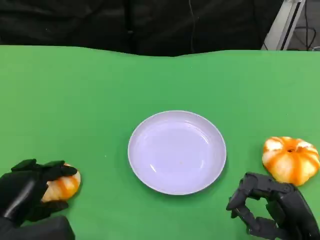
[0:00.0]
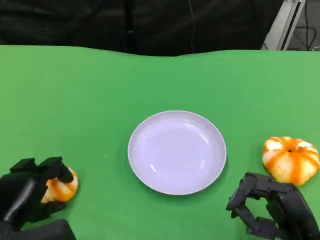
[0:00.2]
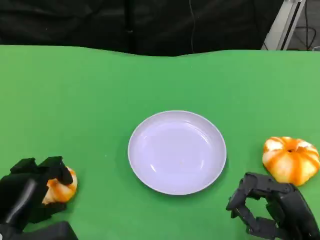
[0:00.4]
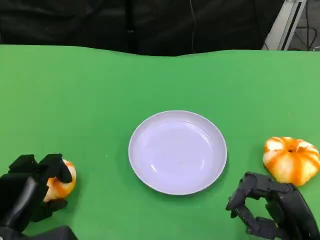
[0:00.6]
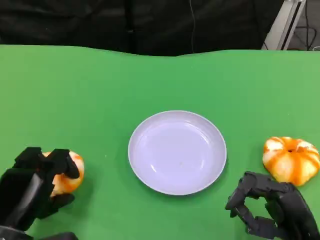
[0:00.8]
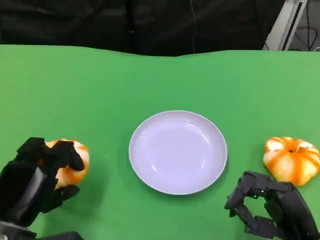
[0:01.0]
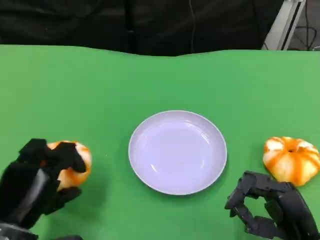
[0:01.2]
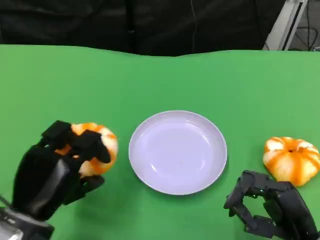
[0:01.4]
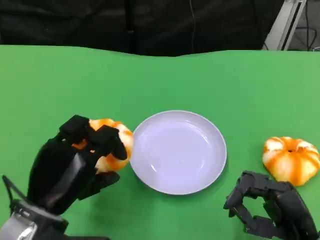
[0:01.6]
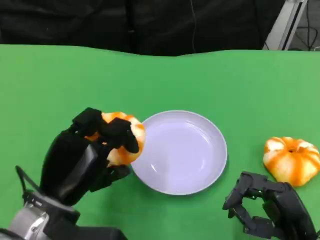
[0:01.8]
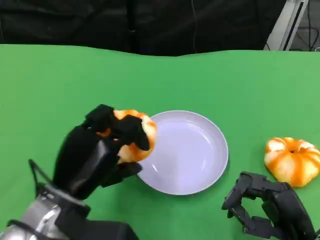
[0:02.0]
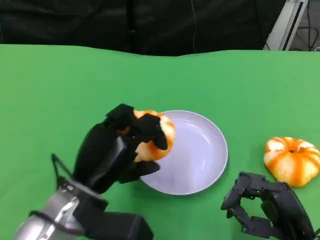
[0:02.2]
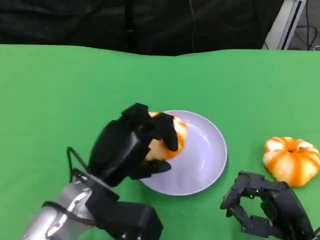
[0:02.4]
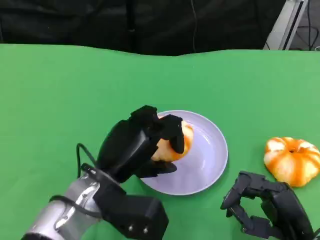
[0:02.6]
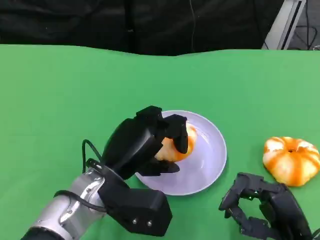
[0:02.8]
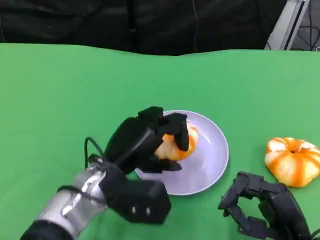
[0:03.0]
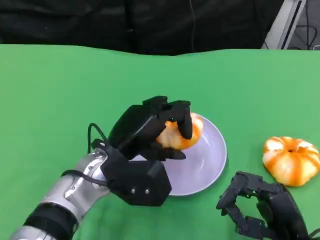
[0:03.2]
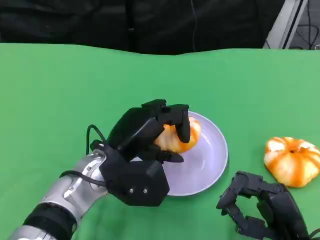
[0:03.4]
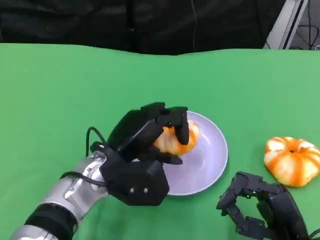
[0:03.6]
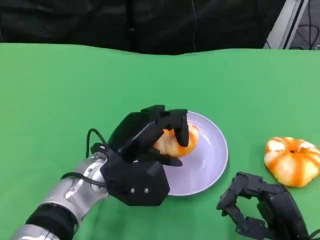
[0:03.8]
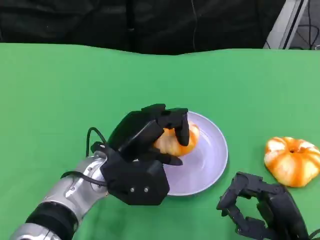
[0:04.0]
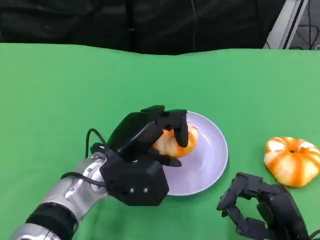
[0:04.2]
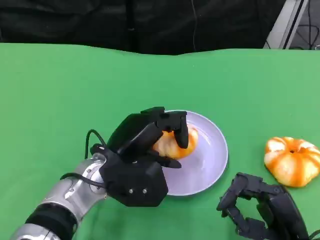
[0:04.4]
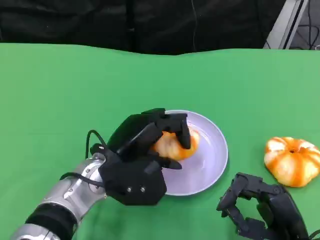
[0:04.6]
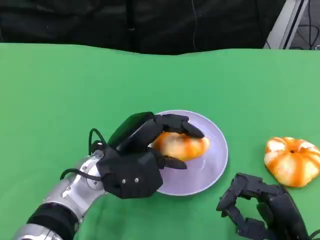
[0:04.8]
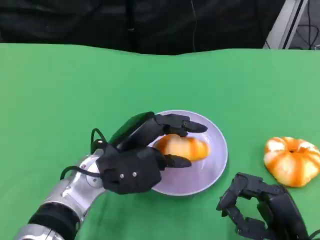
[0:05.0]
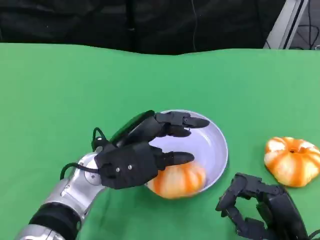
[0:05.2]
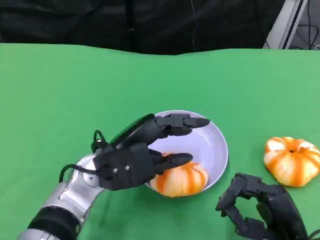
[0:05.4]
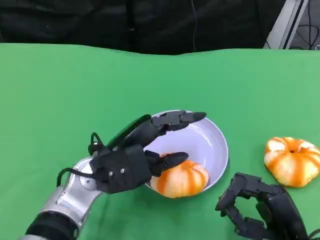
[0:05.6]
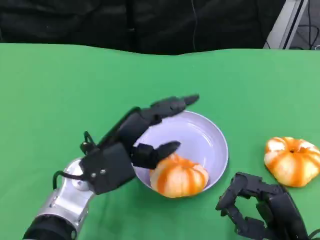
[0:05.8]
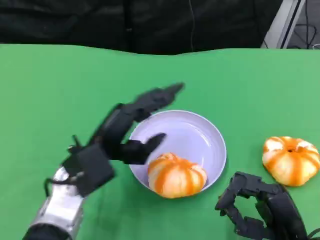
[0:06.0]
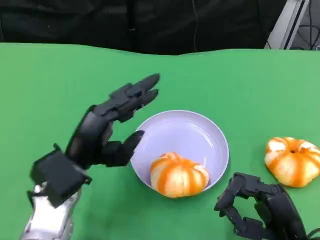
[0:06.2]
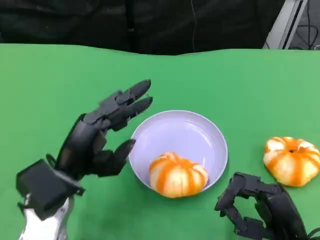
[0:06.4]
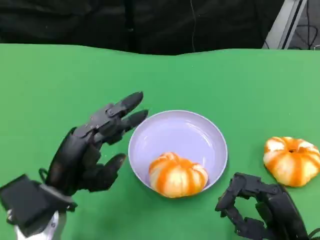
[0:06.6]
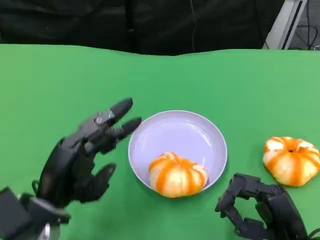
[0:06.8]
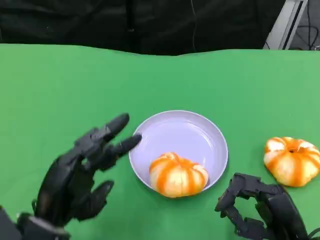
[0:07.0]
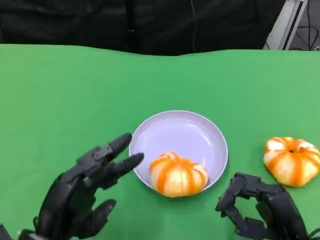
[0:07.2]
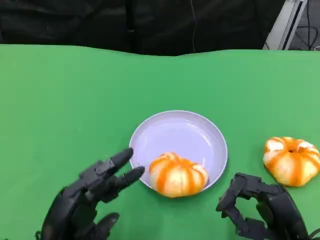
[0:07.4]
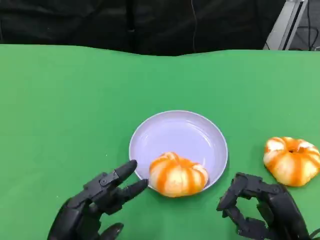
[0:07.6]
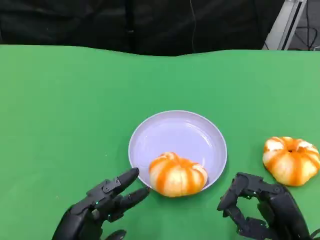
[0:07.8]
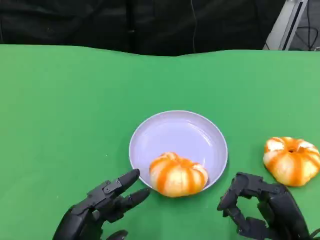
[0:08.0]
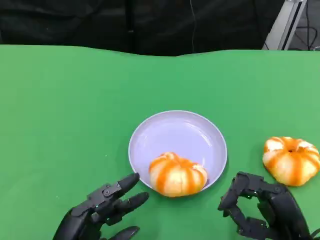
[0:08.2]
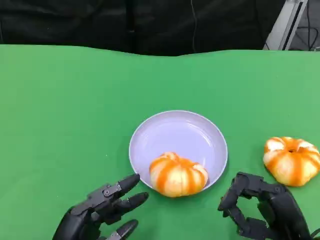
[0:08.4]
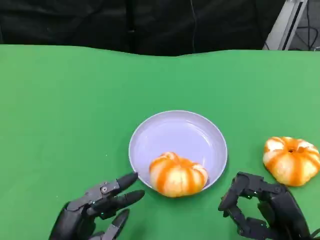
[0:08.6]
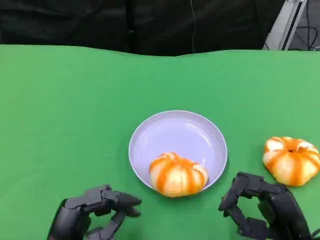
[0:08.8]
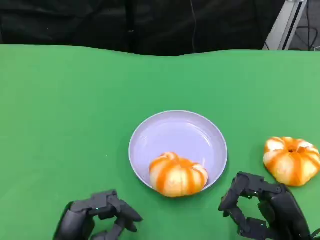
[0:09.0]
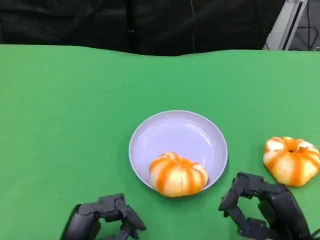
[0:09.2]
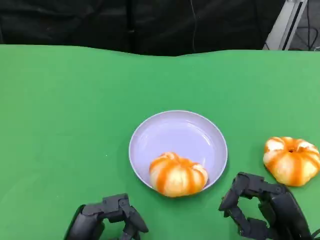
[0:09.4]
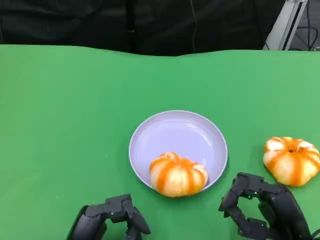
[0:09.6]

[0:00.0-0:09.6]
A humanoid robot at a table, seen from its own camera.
Task of the whole recording: Grasp the bread from the table and place it into the plate.
0:00.0 to 0:01.6: The left hand heads upward and to the right, covering roughly 10 cm.
0:01.6 to 0:03.2: The left hand travels to the right and forward by approximately 10 cm.
0:03.2 to 0:04.8: The hands make only small movements.
0:04.8 to 0:06.4: The left hand goes approximately 5 cm to the left.
0:06.4 to 0:08.0: The left hand is displaced backward and downward by some 10 cm.
0:08.0 to 0:09.6: The hands make only small movements.

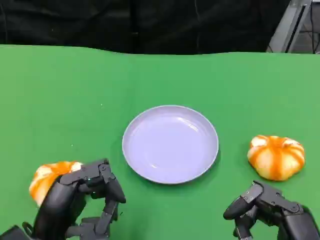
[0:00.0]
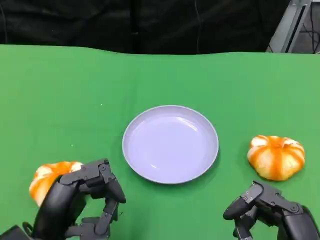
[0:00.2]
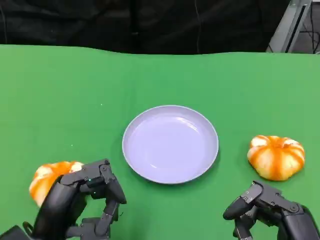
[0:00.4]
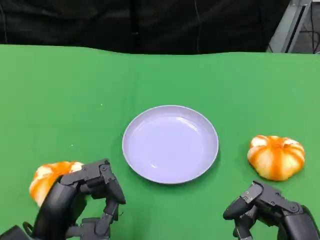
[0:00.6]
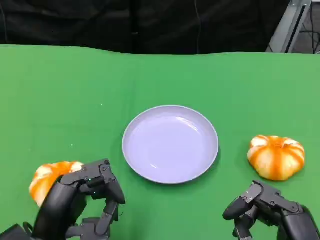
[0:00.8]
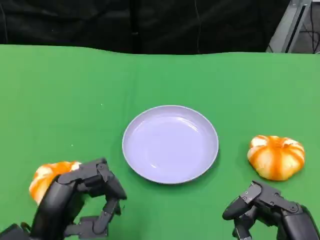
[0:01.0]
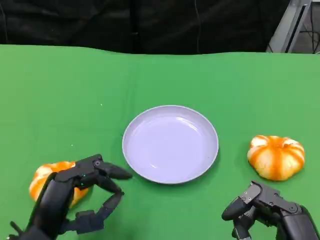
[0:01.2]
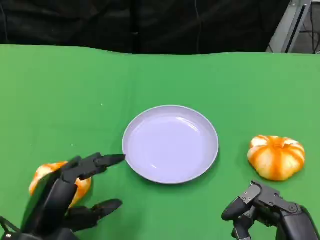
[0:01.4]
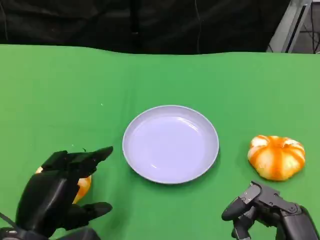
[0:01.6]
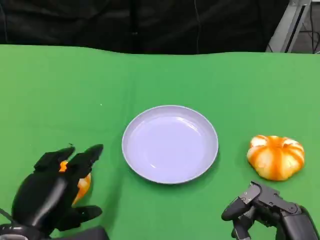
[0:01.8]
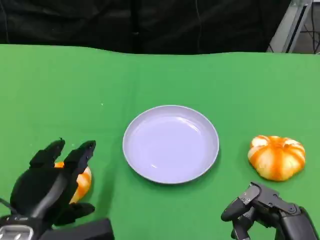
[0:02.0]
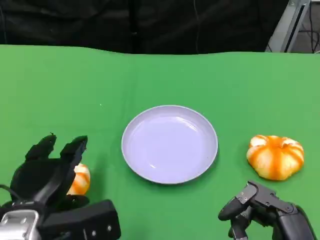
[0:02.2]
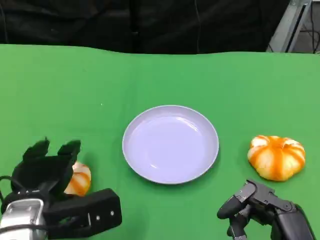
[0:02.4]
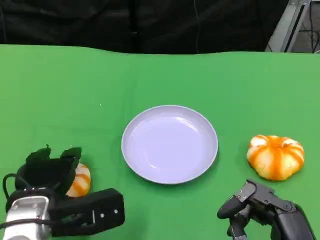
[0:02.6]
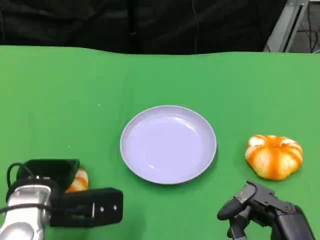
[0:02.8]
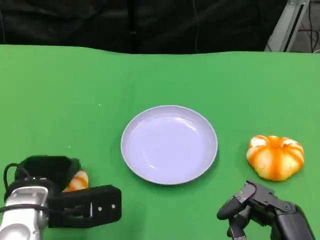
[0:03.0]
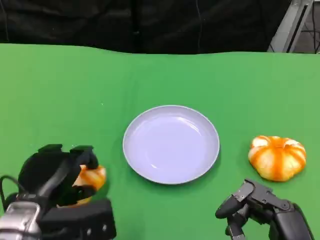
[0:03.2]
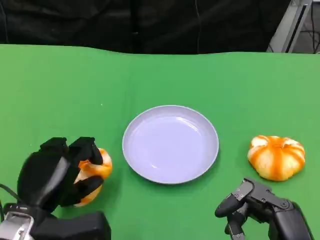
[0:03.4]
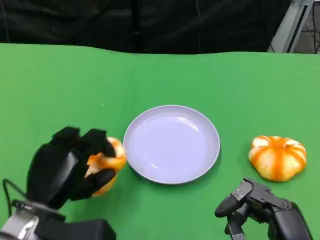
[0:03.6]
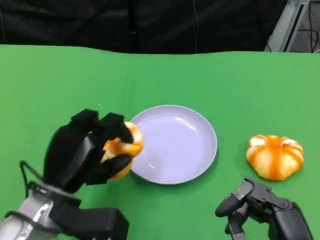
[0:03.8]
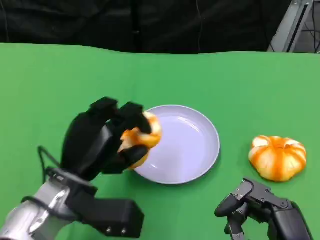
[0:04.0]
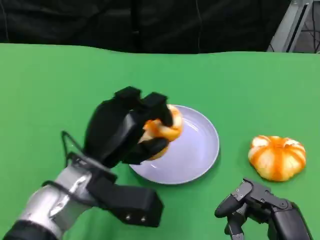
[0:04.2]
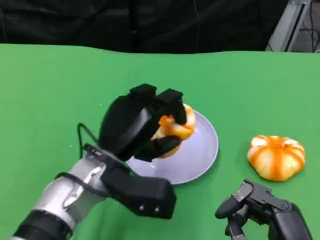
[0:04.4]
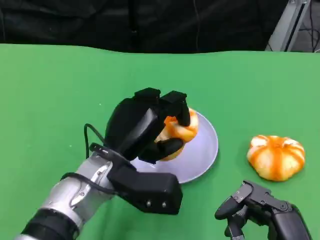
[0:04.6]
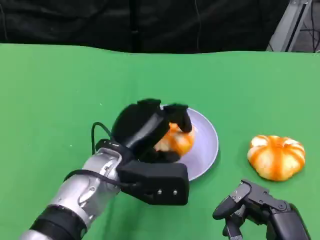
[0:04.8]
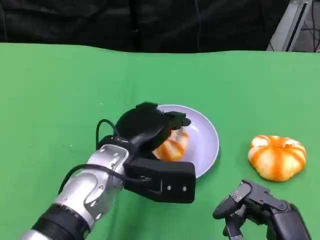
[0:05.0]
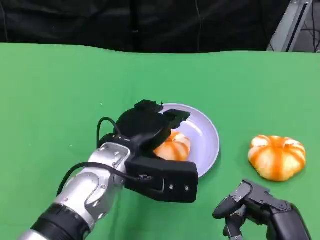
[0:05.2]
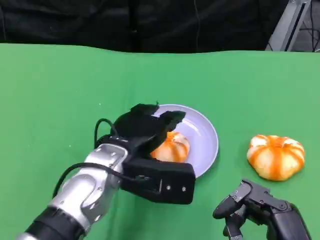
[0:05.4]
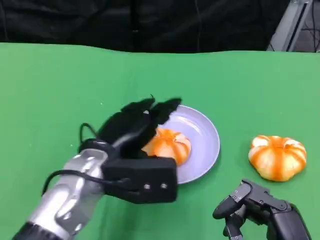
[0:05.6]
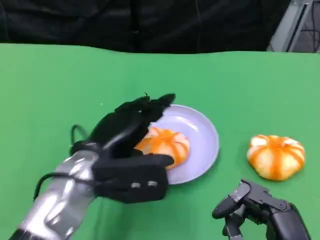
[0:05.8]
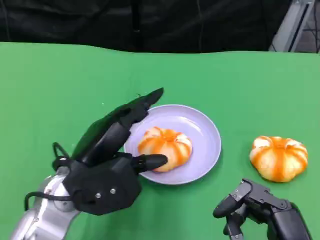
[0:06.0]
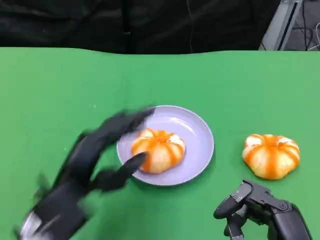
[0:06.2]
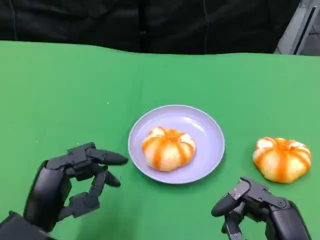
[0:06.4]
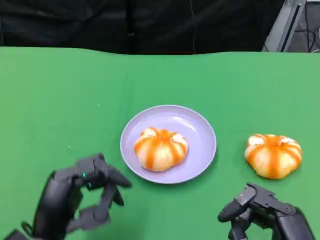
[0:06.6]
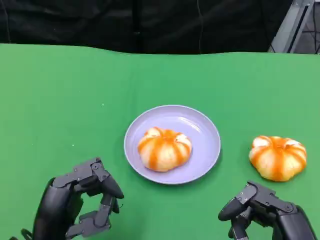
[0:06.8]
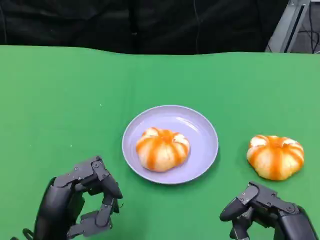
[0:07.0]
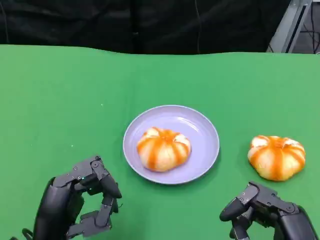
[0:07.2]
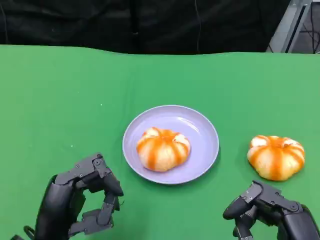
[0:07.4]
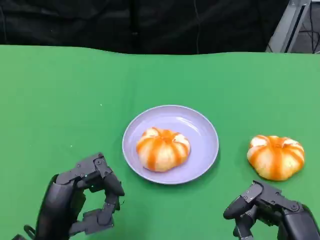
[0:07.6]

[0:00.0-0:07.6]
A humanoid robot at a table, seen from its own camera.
Task of the whole recording: Grasp the bread from the table and place it into the plate.
0:01.6 to 0:03.0: The left hand heads forward, covering some 5 cm.
0:03.0 to 0:04.6: The left hand goes roughly 10 cm to the right.
0:04.6 to 0:06.0: The left hand travels to the left by some 5 cm.
0:06.0 to 0:07.6: The left hand travels backward by about 10 cm.

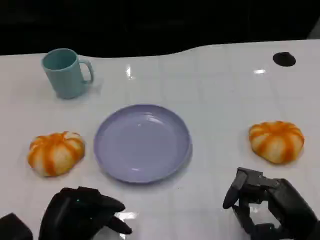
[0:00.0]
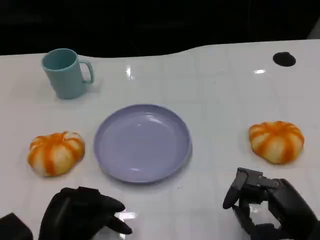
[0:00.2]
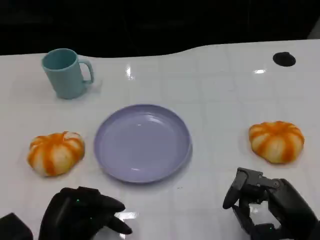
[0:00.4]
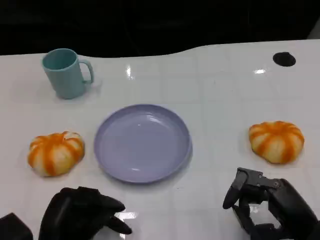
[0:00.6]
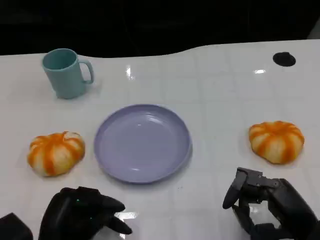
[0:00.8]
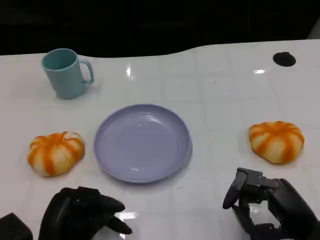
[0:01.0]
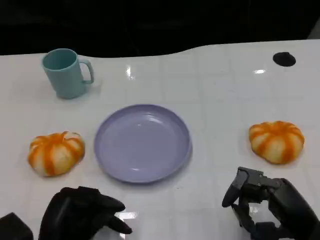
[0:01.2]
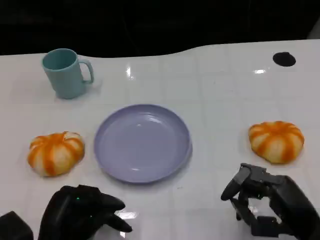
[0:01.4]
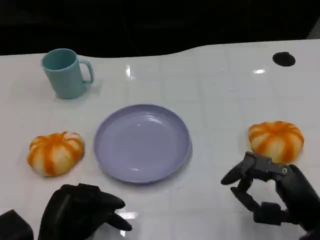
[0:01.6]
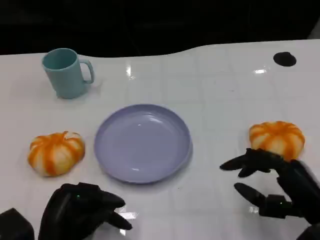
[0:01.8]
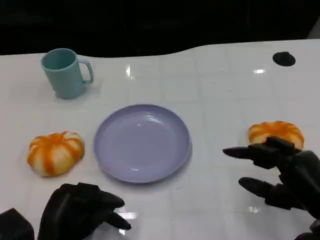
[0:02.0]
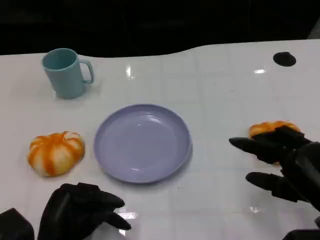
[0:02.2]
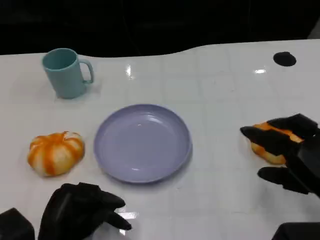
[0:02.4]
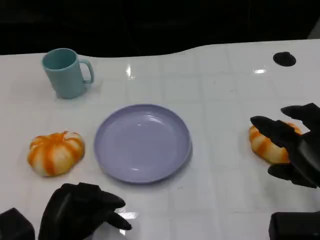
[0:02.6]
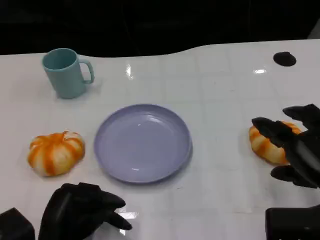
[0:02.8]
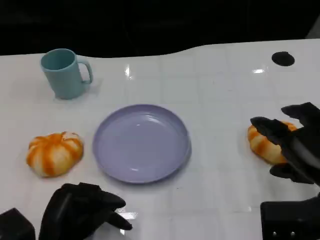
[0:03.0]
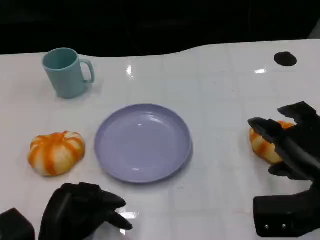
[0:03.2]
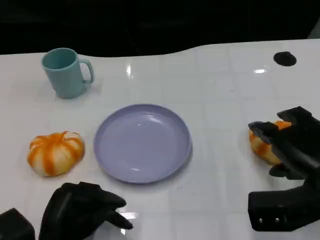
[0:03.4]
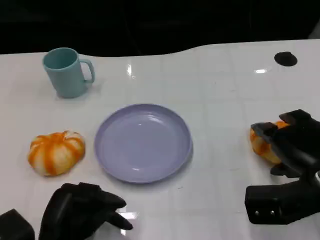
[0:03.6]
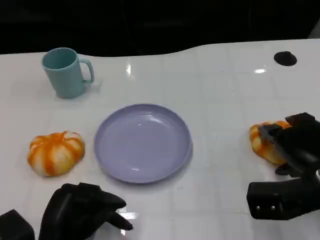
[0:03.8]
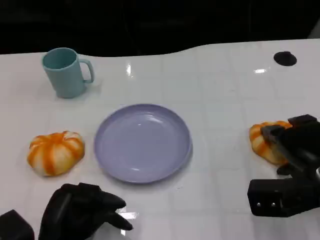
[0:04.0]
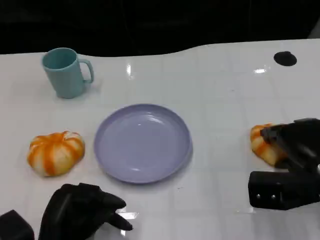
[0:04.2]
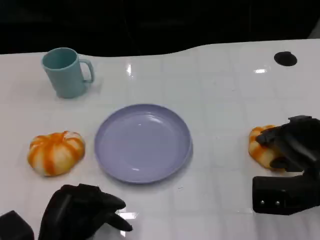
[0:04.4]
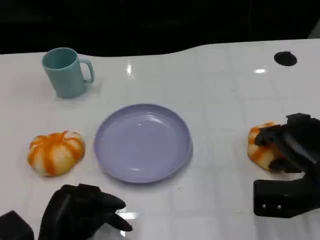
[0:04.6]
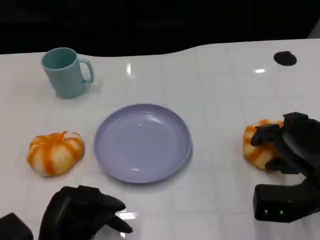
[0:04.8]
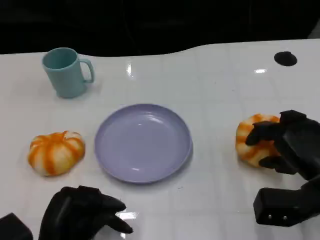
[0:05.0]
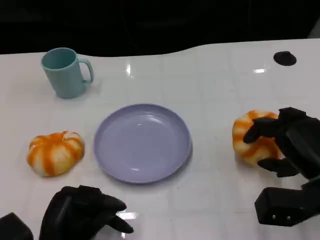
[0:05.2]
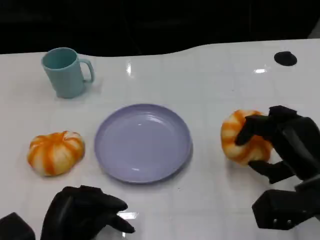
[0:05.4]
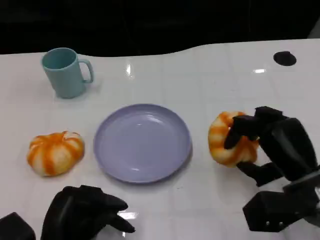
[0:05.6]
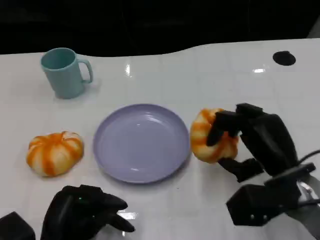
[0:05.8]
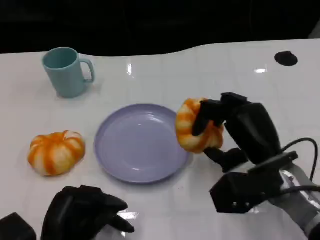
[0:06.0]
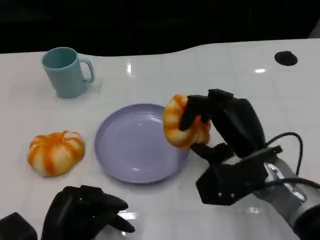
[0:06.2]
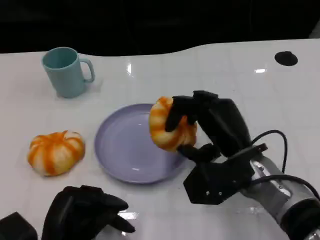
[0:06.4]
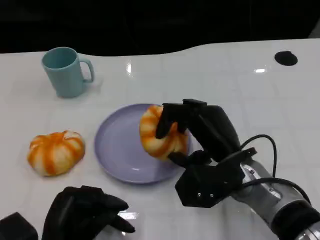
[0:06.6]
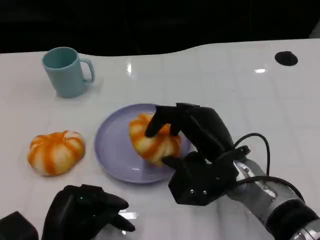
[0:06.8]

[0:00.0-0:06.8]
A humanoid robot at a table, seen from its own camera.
Task of the whole recording: Grasp the bread from the table and place it into the plate.
0:00.0 to 0:01.4: The two hands keep their place.
0:01.4 to 0:02.8: The right hand goes approximately 5 cm upward.
0:02.8 to 0:04.0: The right hand is displaced forward by roughly 5 cm.
0:05.4 to 0:06.8: The right hand heads to the left, covering some 10 cm.
